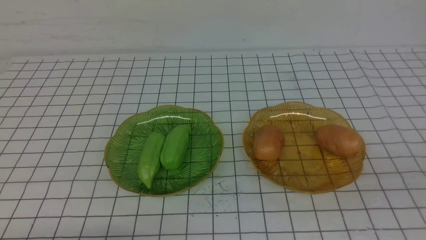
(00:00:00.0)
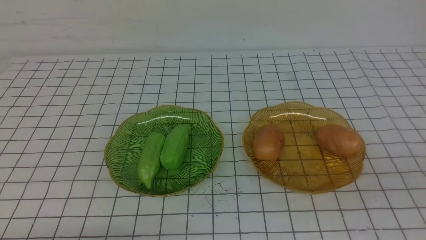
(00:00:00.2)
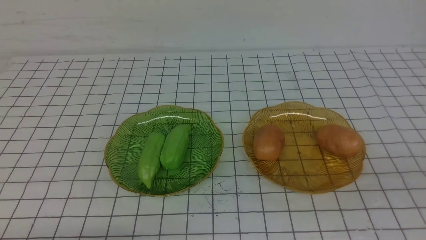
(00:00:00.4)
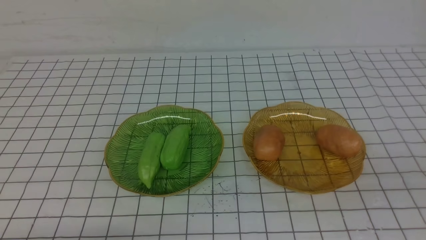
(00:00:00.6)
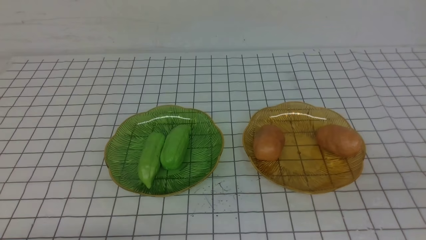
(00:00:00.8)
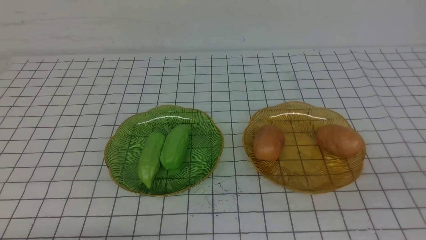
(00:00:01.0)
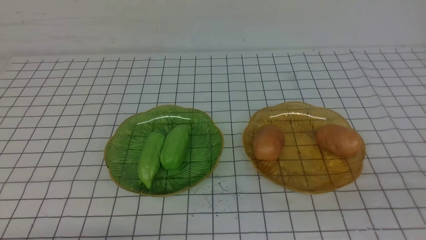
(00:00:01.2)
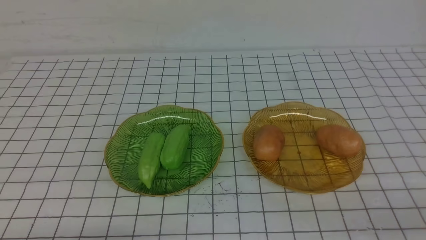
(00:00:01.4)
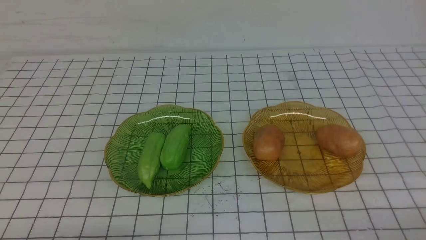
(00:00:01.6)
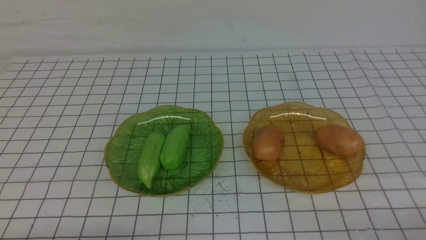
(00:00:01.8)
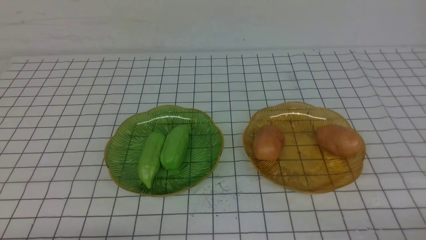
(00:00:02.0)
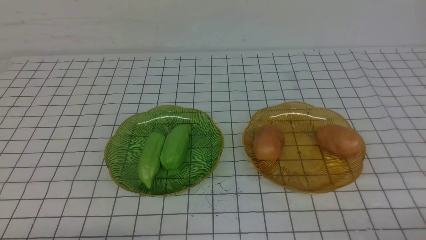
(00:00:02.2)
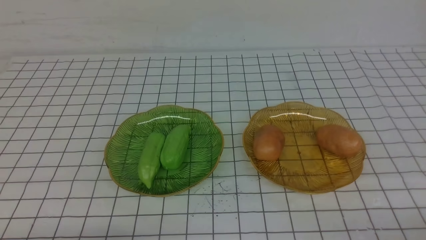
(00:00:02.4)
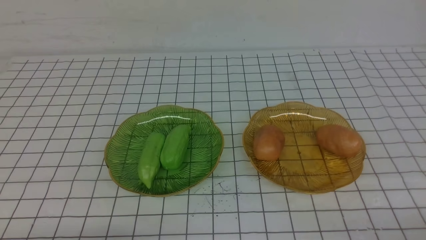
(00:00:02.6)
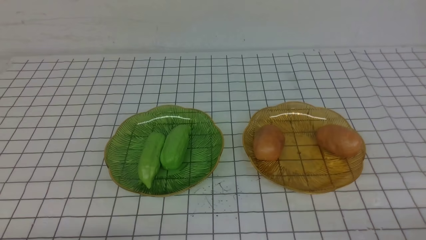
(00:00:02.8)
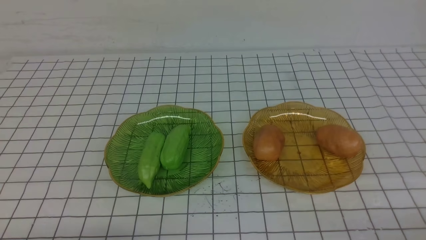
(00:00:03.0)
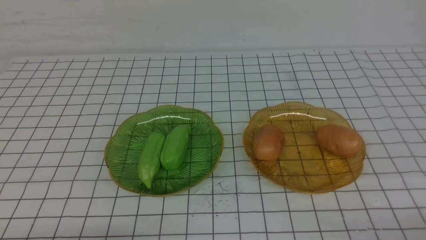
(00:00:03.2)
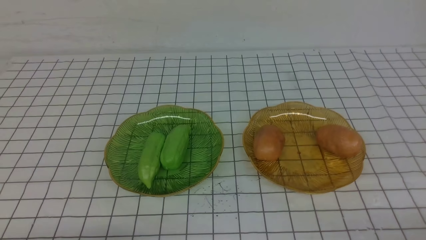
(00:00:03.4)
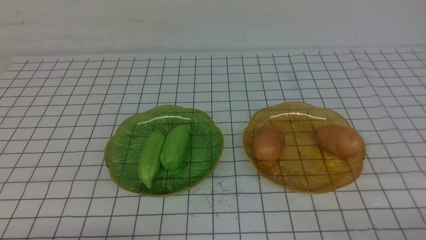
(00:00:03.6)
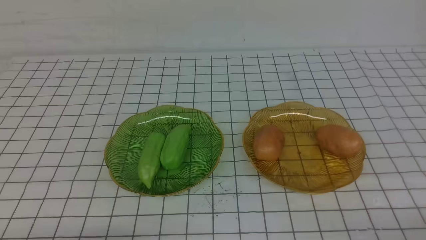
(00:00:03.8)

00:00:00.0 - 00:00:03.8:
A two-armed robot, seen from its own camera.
00:00:02.6 - 00:00:03.8: Neither gripper changes place.
